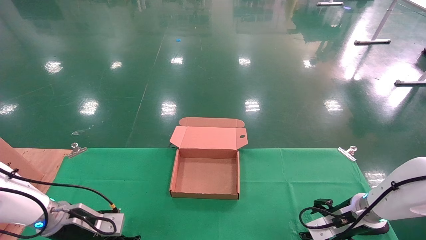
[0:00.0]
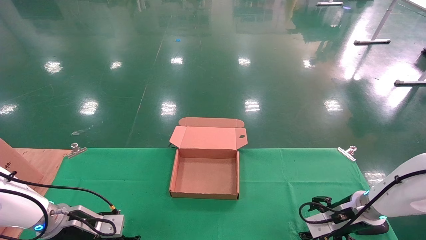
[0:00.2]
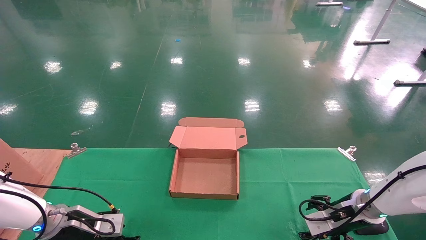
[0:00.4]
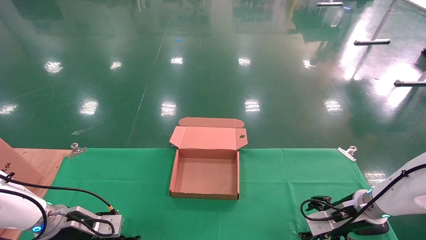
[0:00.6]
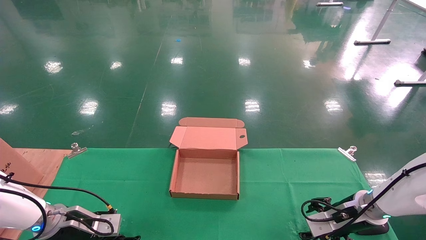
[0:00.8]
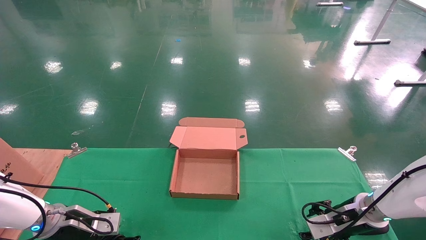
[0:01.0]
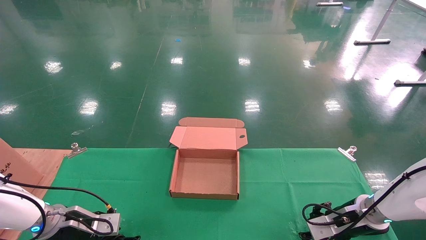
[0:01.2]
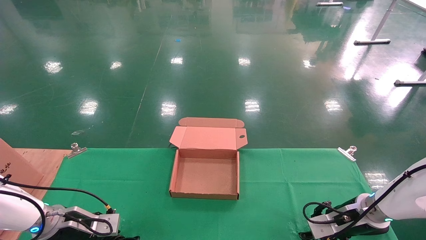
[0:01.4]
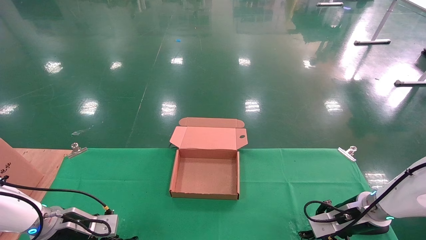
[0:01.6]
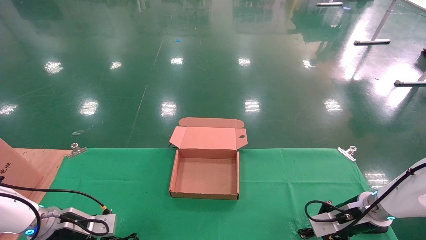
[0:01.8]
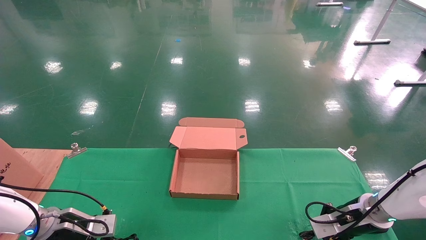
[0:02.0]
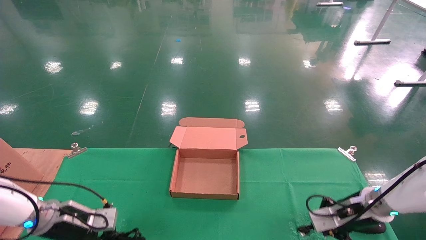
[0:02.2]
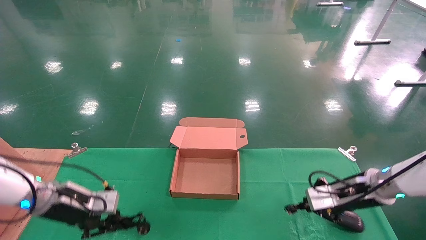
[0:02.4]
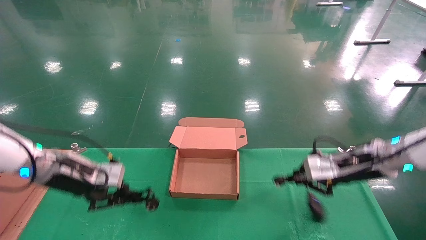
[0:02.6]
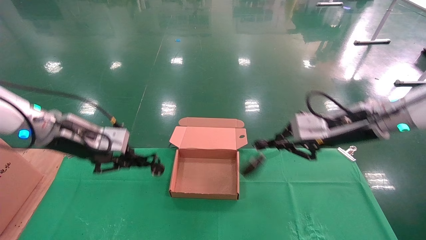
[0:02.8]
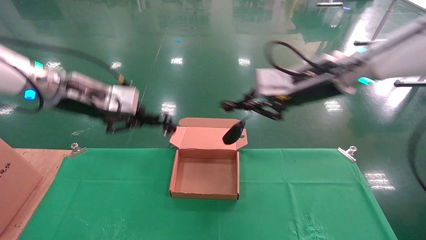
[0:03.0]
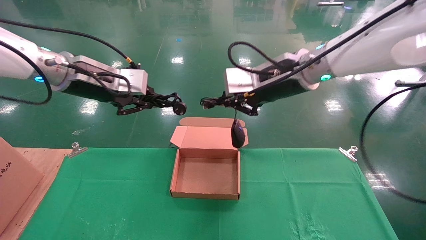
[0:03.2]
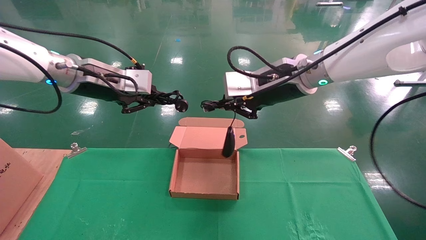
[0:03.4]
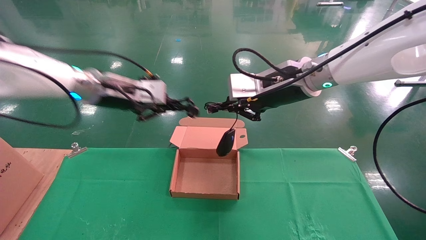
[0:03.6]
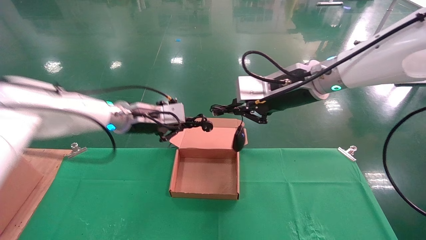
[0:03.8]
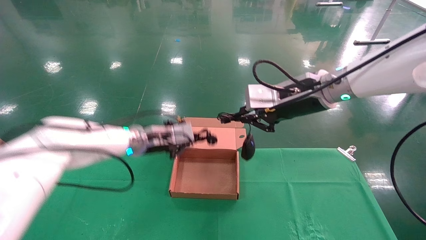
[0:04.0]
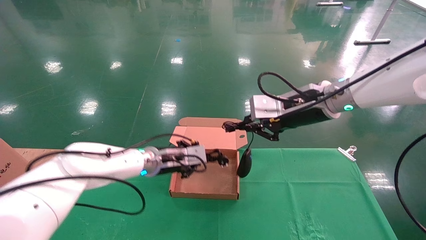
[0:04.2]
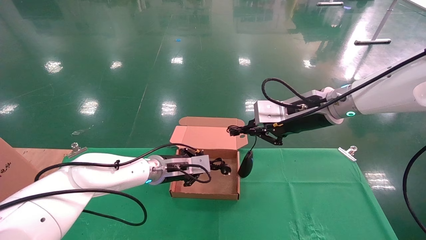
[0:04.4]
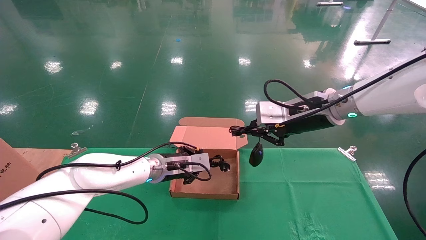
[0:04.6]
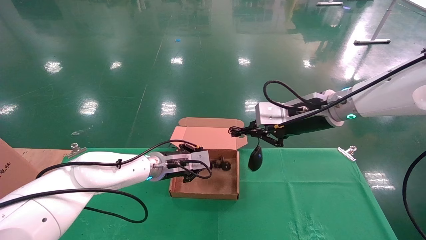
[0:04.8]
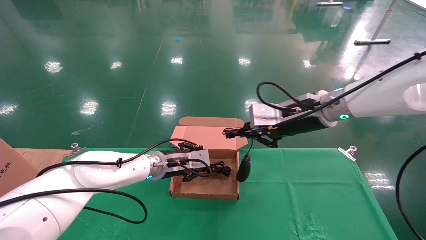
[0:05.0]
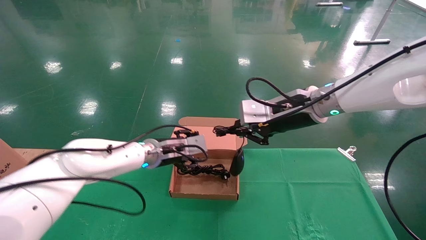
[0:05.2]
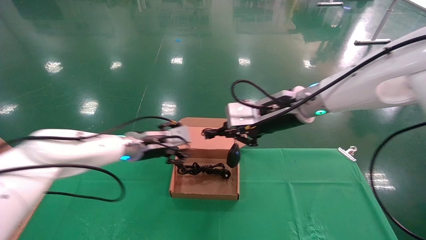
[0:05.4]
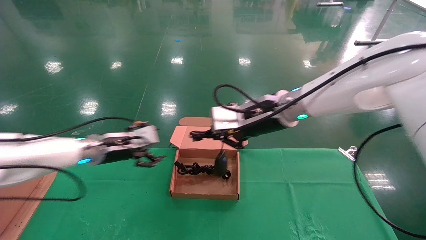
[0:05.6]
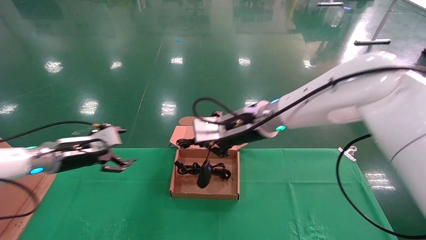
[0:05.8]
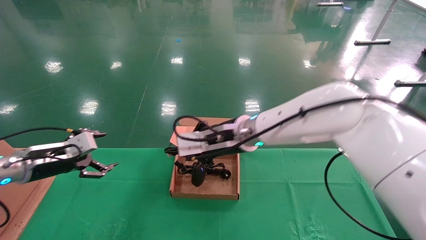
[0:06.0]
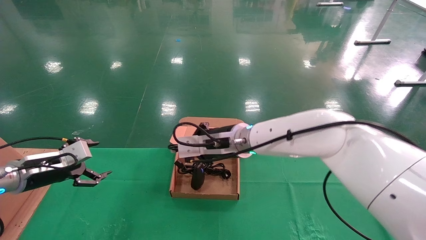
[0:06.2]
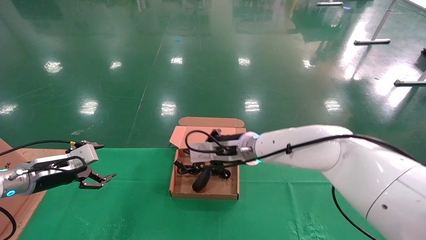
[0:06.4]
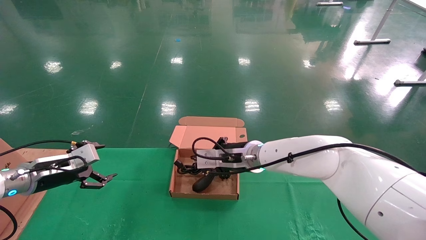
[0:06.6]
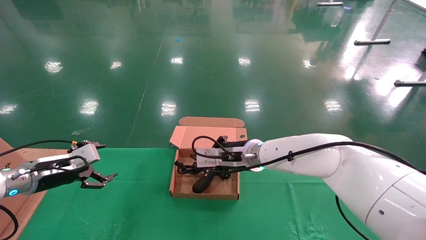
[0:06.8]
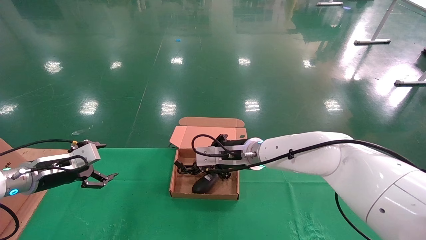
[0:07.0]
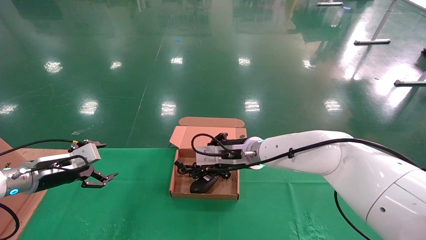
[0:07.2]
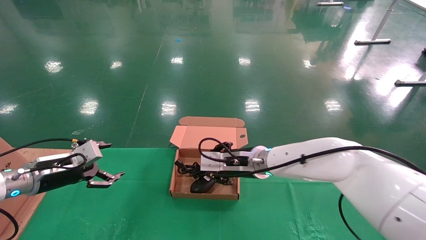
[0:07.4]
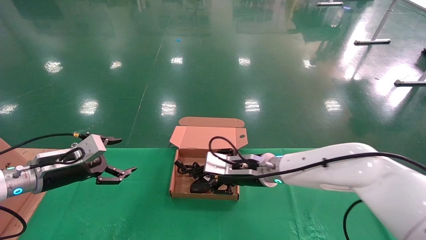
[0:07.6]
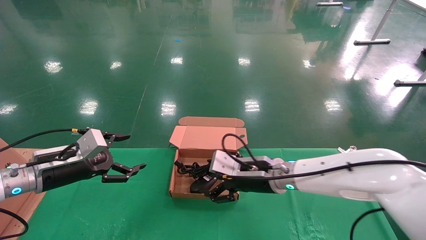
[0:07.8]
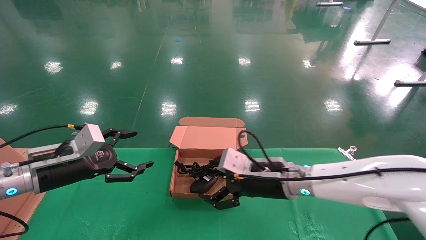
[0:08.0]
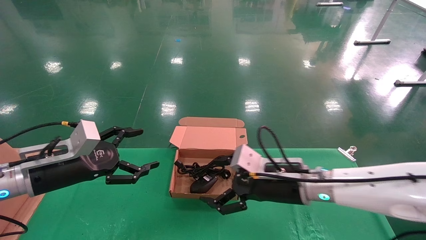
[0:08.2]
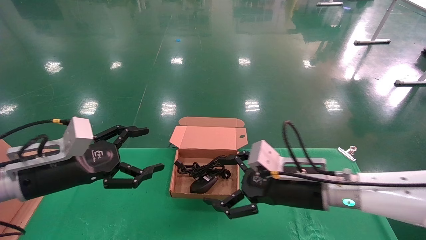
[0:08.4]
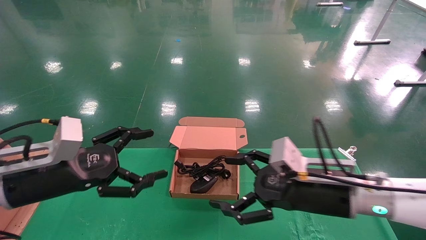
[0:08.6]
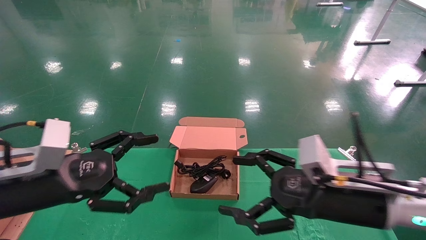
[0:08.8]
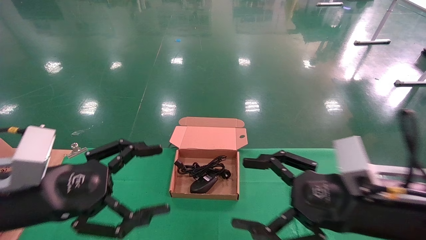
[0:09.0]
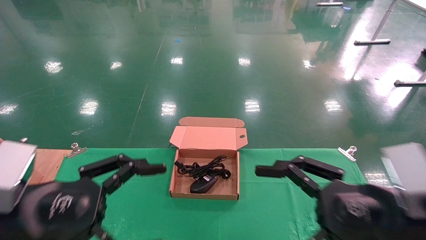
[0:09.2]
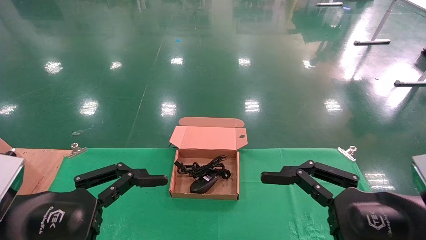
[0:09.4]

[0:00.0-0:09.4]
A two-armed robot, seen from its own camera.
Step, 0:00.0 to 0:02.2: Grab and lift both the mouse and power cord from the accessory packaging area at the same time.
Step, 0:02.4 to 0:08.2: Place the mouse and power cord into the box.
0:00.0 to 0:01.6: The left gripper closes its fingers, while the right gripper closes up.
0:01.6 to 0:03.2: The right gripper is displaced upward and to the left by about 35 cm, and closes. Meanwhile the left gripper moves upward, approximately 30 cm, and closes its fingers.
0:03.2 to 0:04.8: The left gripper moves downward, to the right and forward, some 25 cm; the right gripper heads downward, covering about 5 cm.
0:04.8 to 0:06.2: The left gripper travels to the left by some 25 cm, and opens up. The right gripper travels to the left and downward by some 15 cm.
0:06.2 to 0:07.8: The right gripper moves downward and to the right, roughly 10 cm, and opens up. The left gripper shifts roughly 5 cm to the right.
0:07.8 to 0:09.4: Both grippers move backward and to the right, roughly 25 cm.

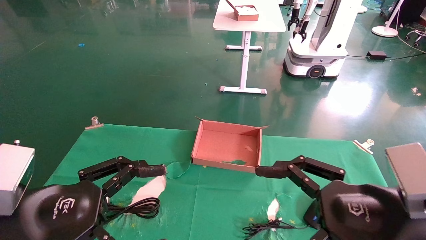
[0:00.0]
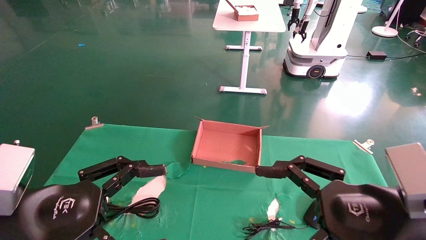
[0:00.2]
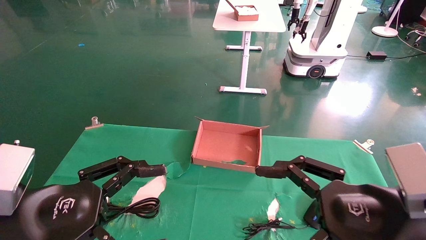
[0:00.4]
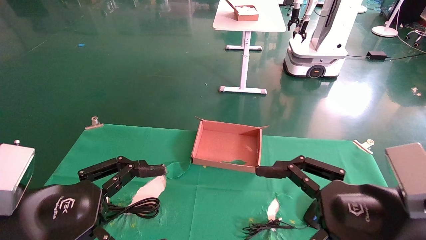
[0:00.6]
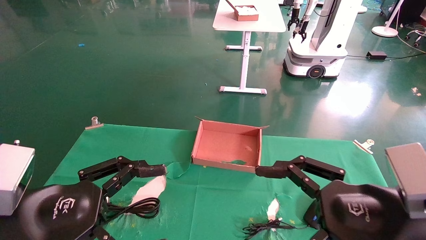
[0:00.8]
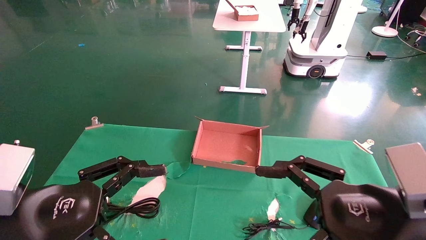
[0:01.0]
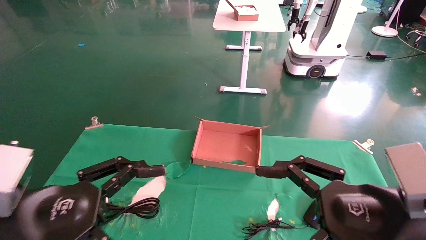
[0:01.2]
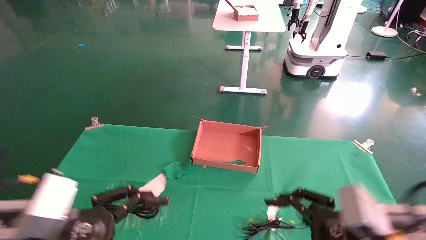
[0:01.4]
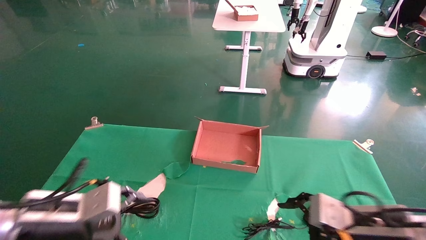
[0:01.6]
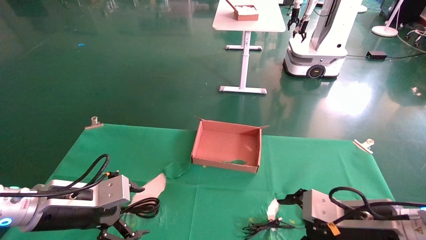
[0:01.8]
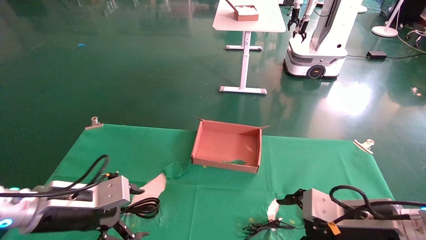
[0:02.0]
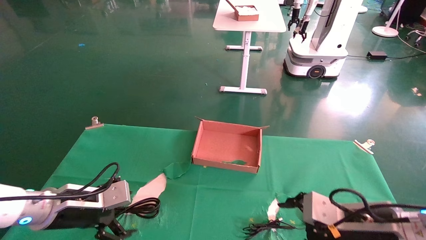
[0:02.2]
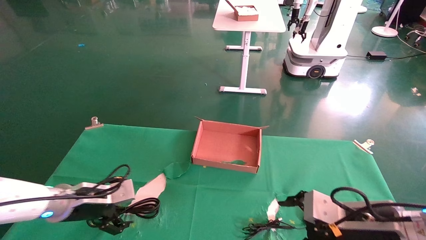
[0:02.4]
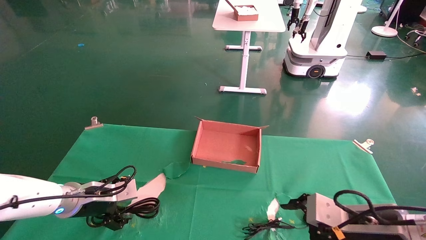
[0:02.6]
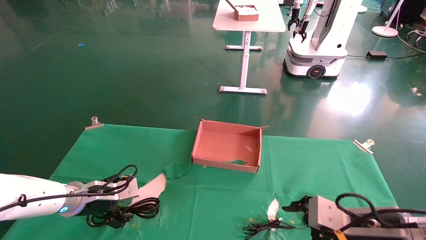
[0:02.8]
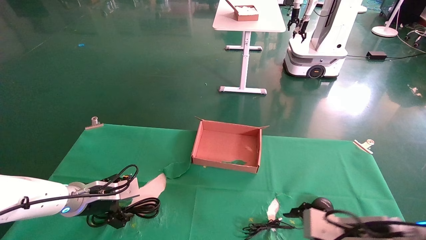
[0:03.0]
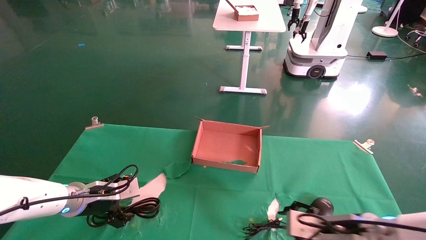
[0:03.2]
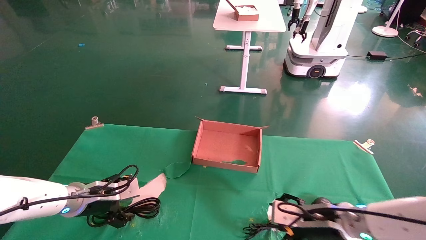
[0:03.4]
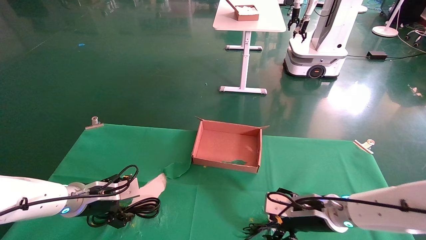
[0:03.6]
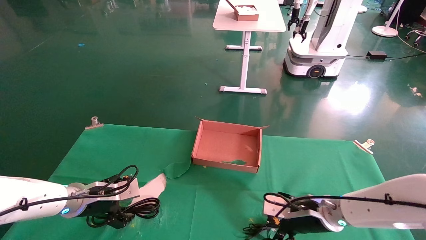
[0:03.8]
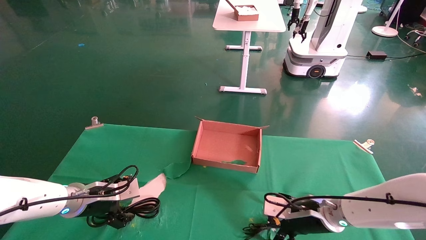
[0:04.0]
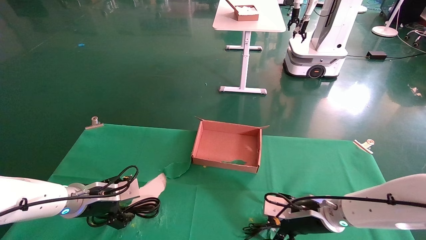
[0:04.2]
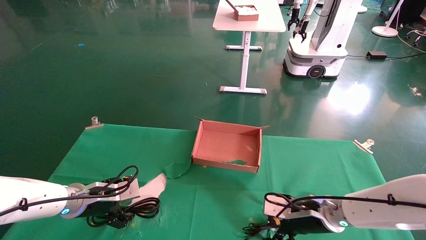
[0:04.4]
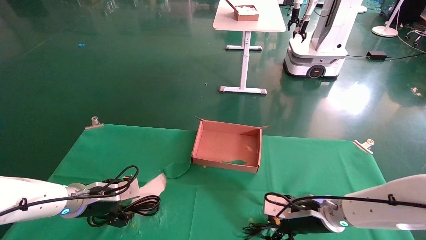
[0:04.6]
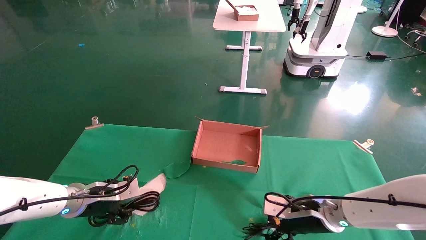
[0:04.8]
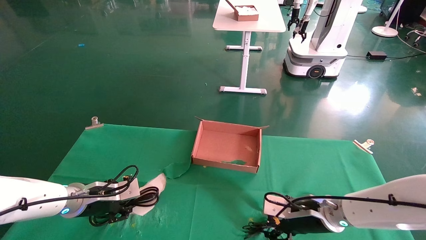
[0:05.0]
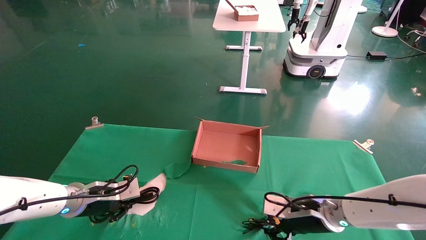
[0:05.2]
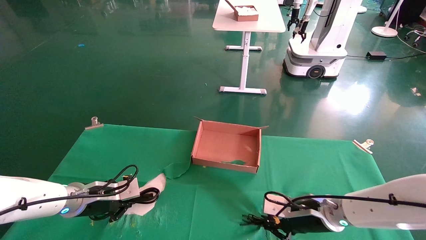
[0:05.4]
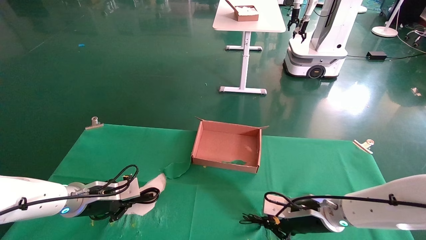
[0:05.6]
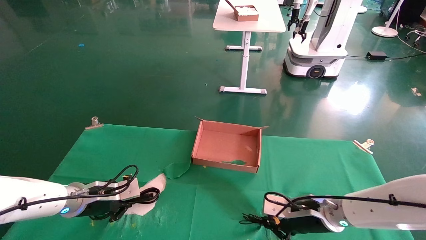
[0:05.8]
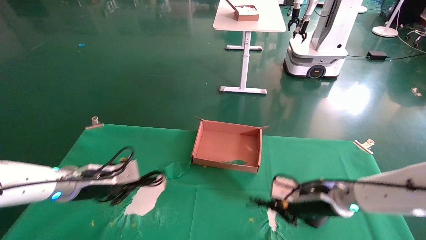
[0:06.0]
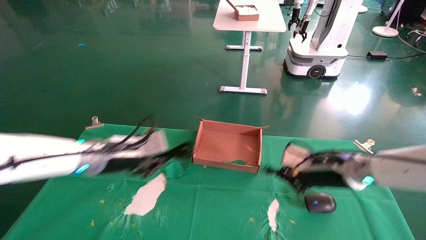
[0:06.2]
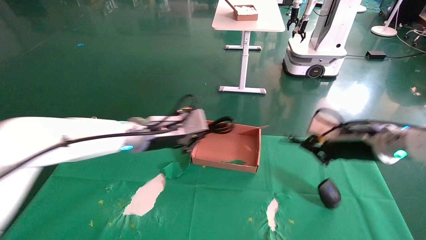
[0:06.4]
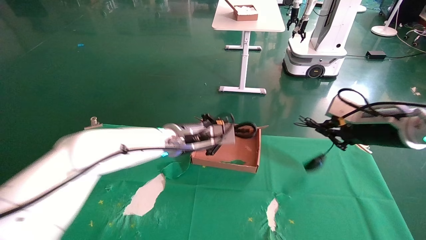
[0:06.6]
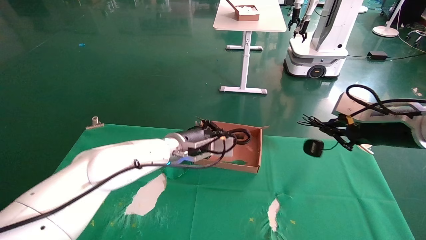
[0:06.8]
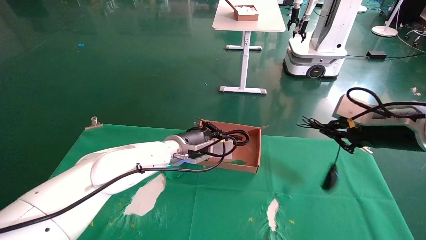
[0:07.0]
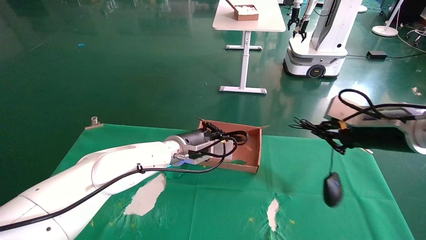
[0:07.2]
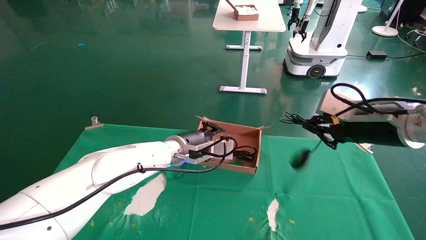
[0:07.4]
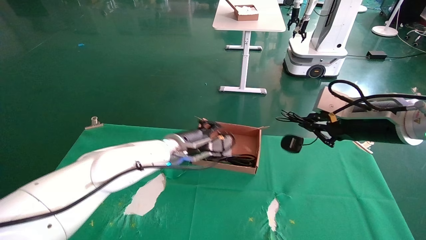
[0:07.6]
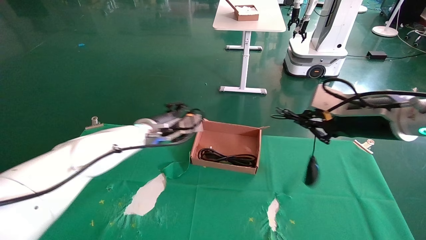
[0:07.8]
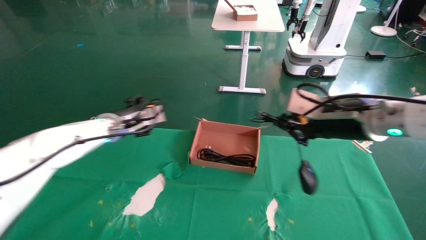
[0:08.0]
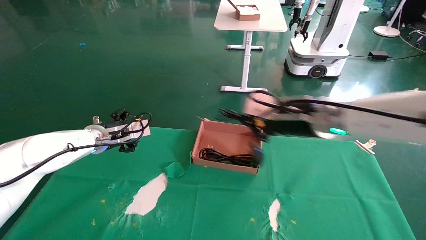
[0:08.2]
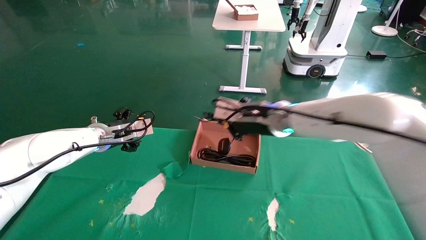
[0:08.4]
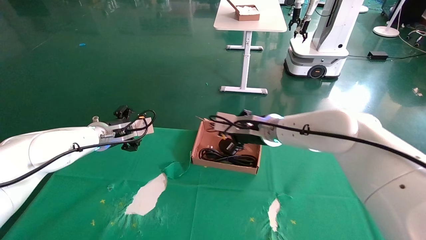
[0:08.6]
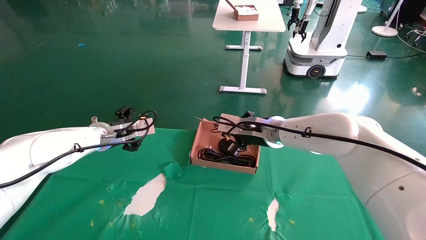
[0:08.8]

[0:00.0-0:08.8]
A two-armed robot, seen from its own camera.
Step, 0:01.2 to 0:06.2: Grab and lift both the mouse and power cord from the accessory packaging area at the same time.
0:00.0 to 0:01.4: The right gripper goes some 5 cm downward; the left gripper moves some 5 cm.
0:01.4 to 0:03.0: The left gripper travels forward by about 15 cm. Meanwhile the right gripper shifts approximately 10 cm forward and downward.
0:03.0 to 0:04.4: The right gripper moves forward, about 10 cm.
0:04.4 to 0:05.8: The left gripper closes its fingers. The right gripper closes.
0:05.8 to 0:07.4: The right gripper moves upward, approximately 20 cm. Meanwhile the left gripper is displaced to the right by some 20 cm.
0:07.4 to 0:08.8: The right gripper heads to the left and forward, covering about 25 cm; the left gripper goes approximately 20 cm to the left, and opens up.
